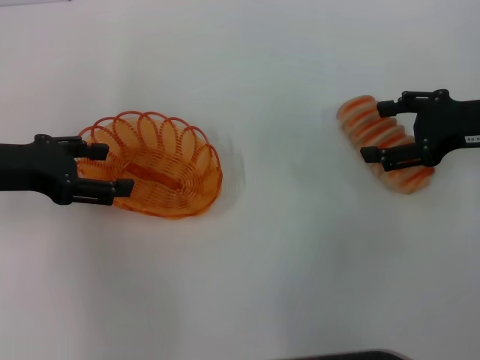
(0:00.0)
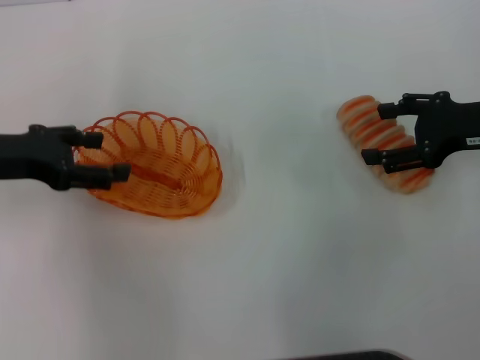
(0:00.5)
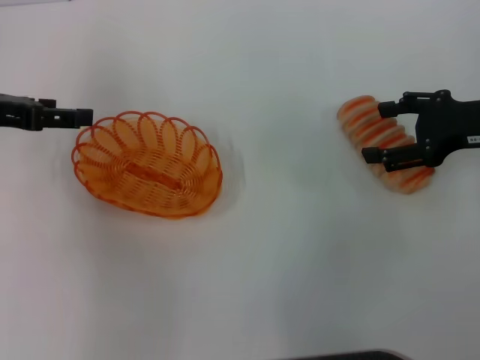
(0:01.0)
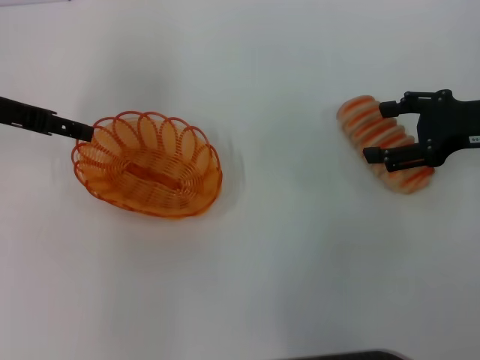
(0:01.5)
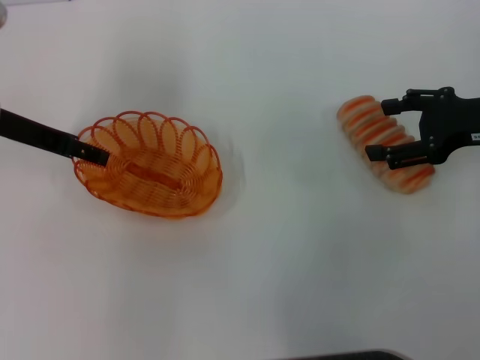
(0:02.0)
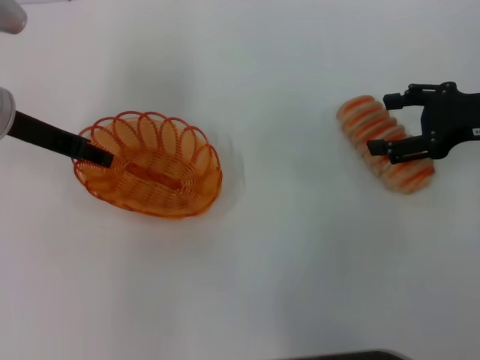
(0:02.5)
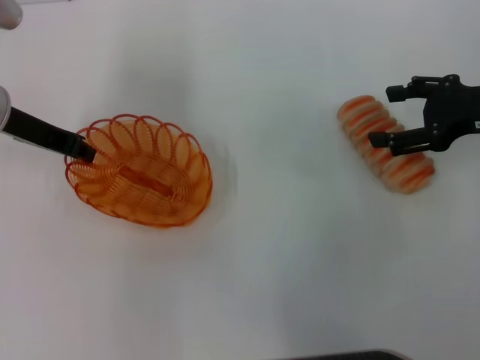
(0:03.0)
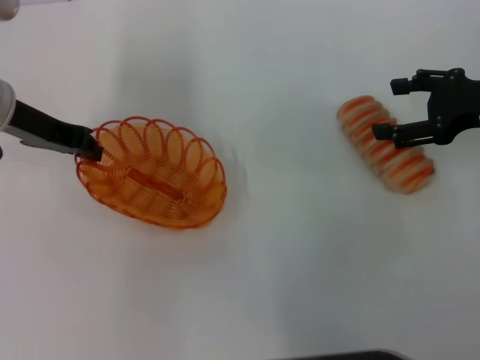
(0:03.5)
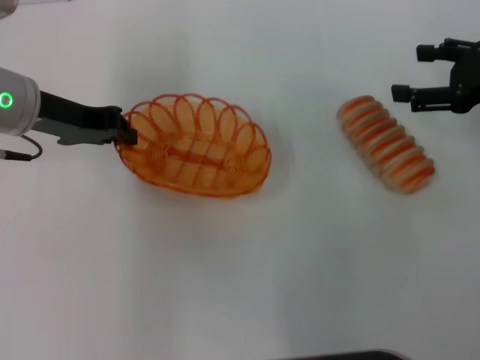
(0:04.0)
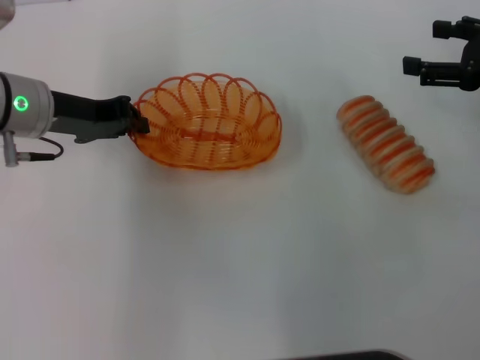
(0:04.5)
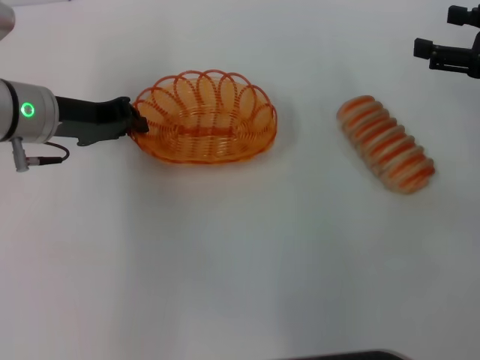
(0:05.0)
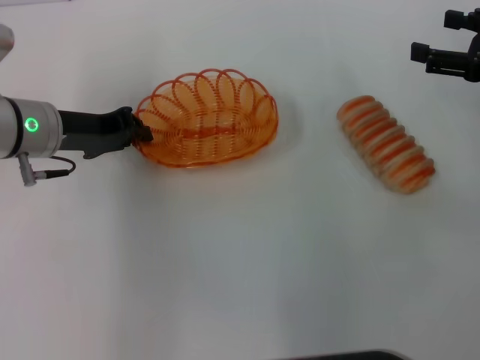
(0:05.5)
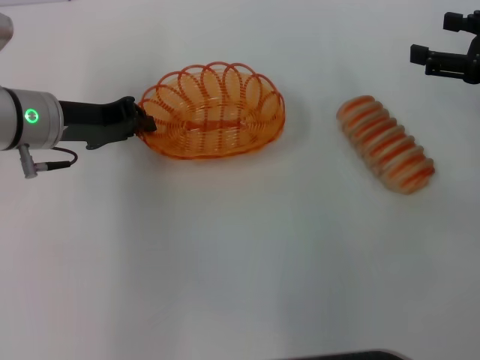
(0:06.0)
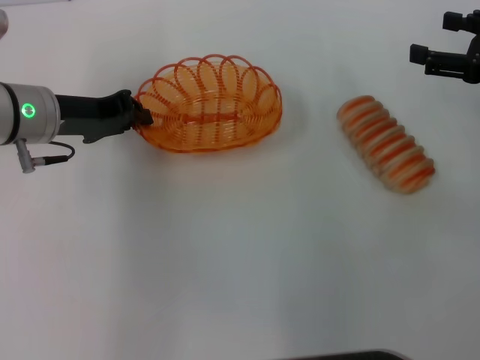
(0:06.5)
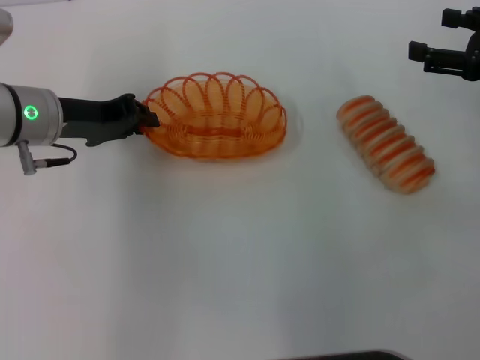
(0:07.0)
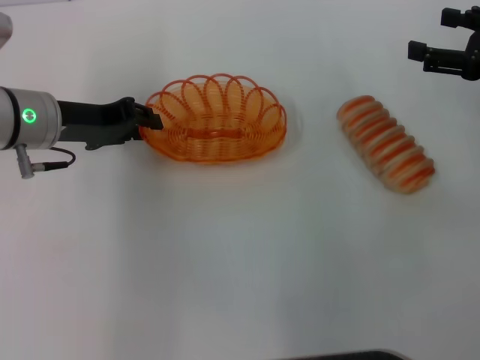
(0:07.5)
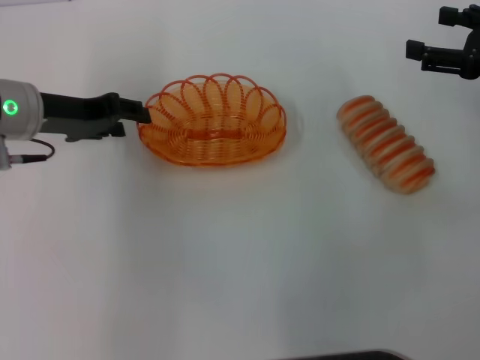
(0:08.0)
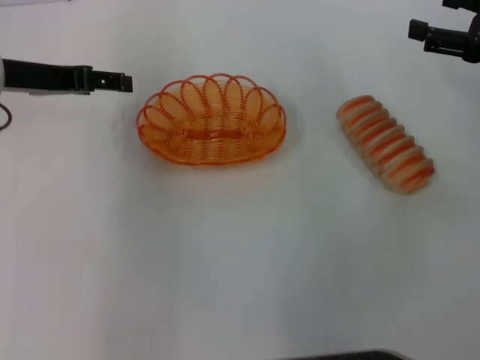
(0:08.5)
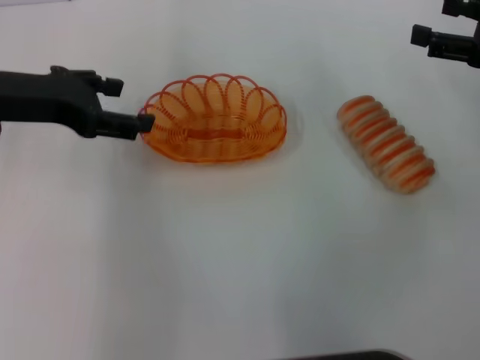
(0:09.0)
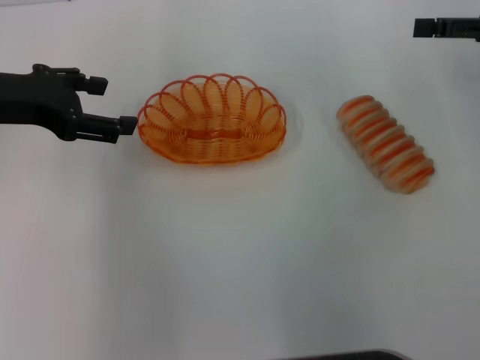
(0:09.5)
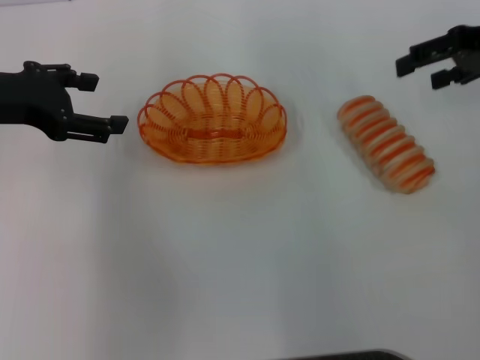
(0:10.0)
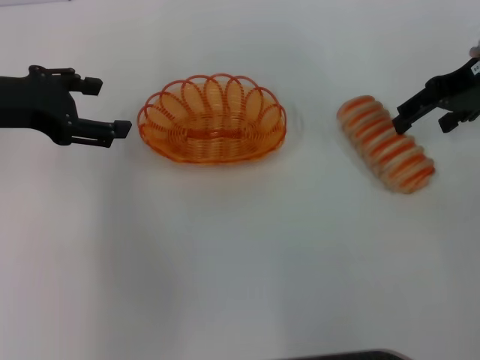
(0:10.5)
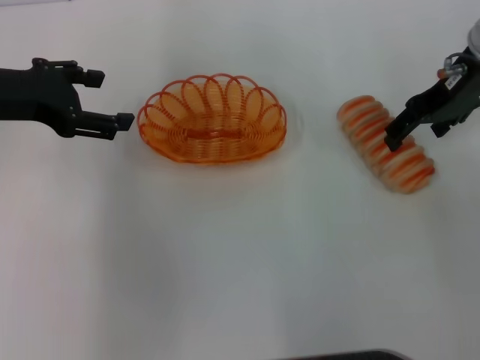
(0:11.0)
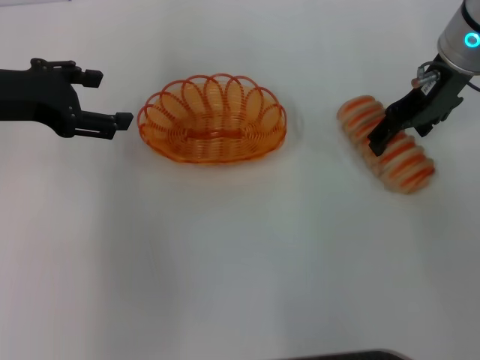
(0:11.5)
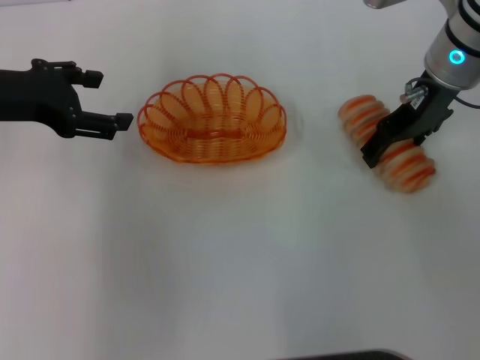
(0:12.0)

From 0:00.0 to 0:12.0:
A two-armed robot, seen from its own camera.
Step, from 0:00.0 to 0:04.0: Pick up the basket with the left gripper.
Step, from 0:04.5 to 0:08.0: Place the basket in the center of view with the left gripper.
From 0:00.0 to 0:02.0: The left gripper moves forward, roughly 5 cm.
From 0:02.0 to 0:04.0: The left gripper closes up.
From 0:04.0 to 0:06.0: The grippers make only small movements.
From 0:06.0 to 0:08.0: The left gripper opens its fingers.
From 0:08.0 to 0:10.0: The left gripper travels upward by approximately 5 cm, and opens its fingers, while the right gripper heads upward and forward, covering roughly 10 cm.
From 0:10.0 to 0:12.0: The right gripper is displaced to the left by roughly 10 cm.

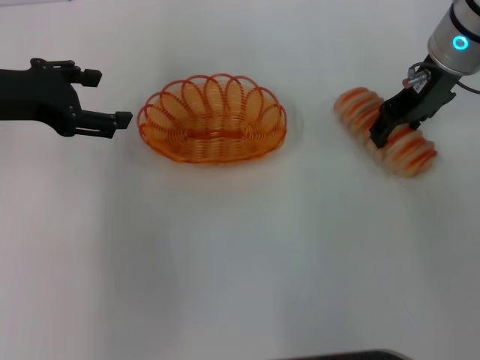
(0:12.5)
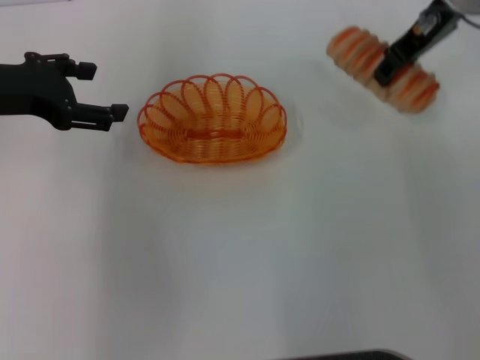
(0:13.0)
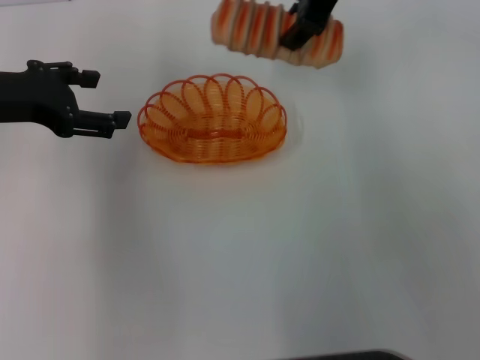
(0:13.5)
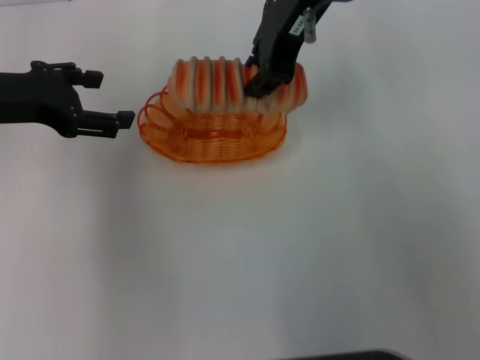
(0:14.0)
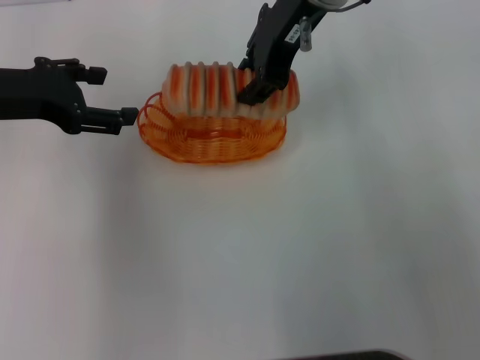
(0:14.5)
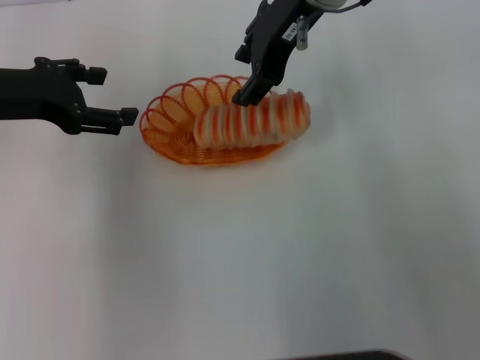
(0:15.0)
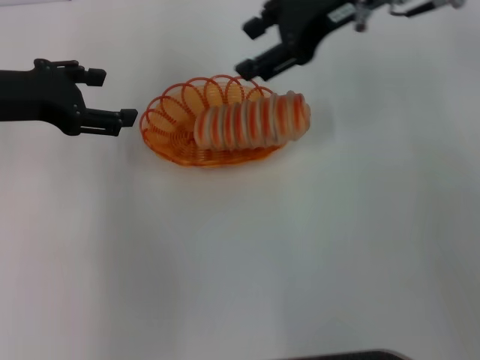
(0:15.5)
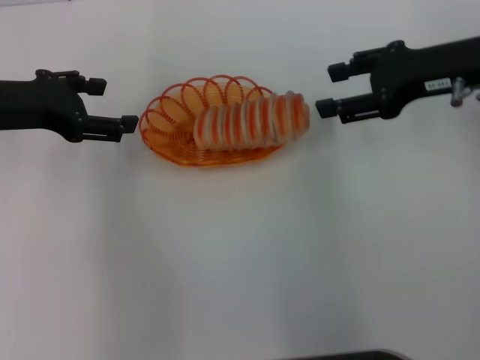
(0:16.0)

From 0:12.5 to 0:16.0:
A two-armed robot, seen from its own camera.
Step, from 0:13.5 to 0:15.5: Place the long bread into the basket with the right gripper.
From 0:12.5 to 0:14.5: The right gripper shifts some 15 cm to the left and upward, and closes its fingers.
From 0:14.5 to 0:16.0: The right gripper moves to the right and downward, some 20 cm, and opens.
